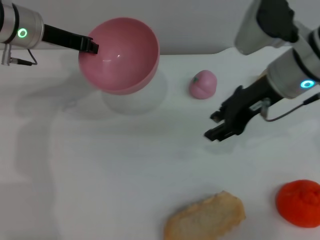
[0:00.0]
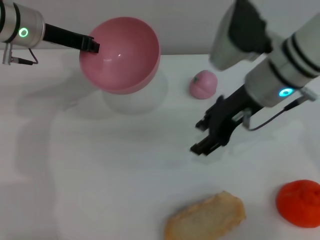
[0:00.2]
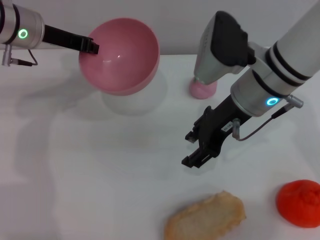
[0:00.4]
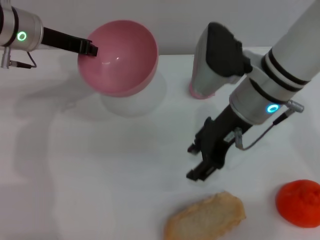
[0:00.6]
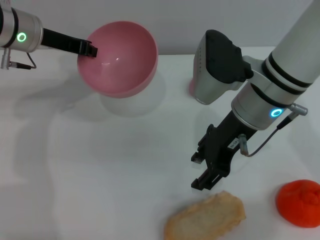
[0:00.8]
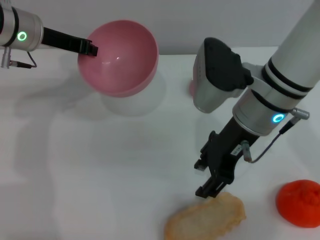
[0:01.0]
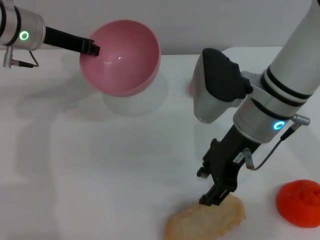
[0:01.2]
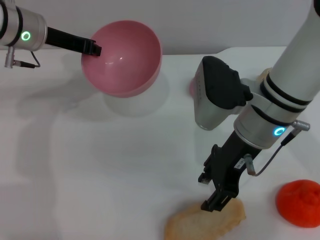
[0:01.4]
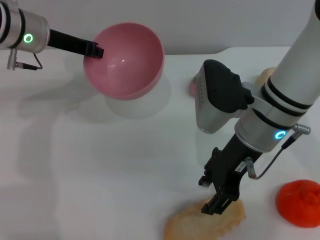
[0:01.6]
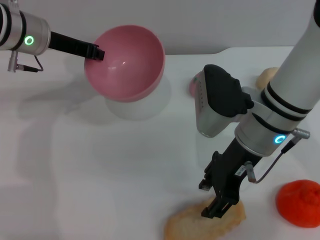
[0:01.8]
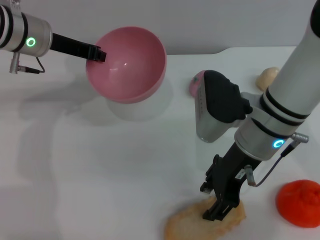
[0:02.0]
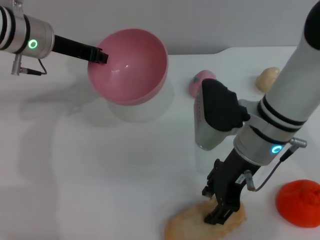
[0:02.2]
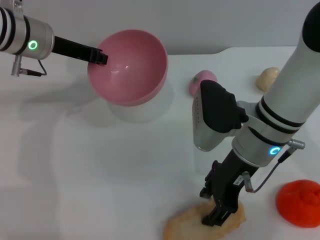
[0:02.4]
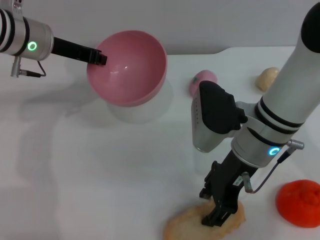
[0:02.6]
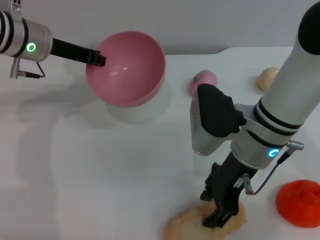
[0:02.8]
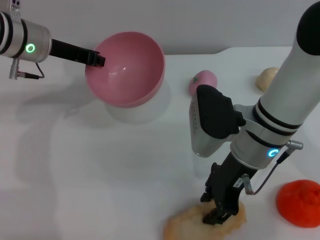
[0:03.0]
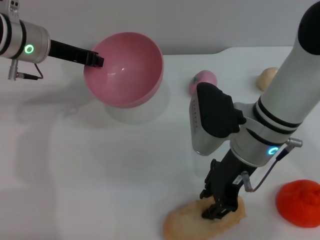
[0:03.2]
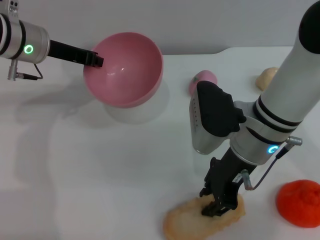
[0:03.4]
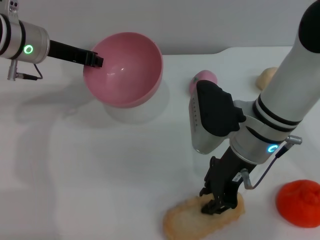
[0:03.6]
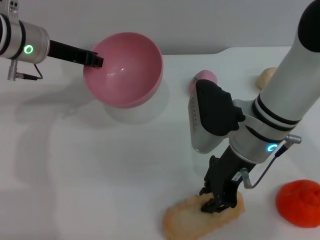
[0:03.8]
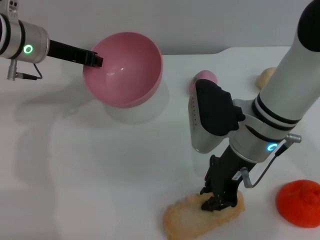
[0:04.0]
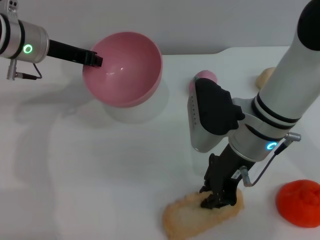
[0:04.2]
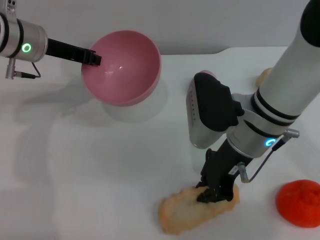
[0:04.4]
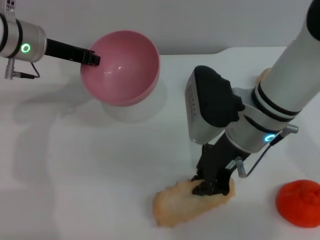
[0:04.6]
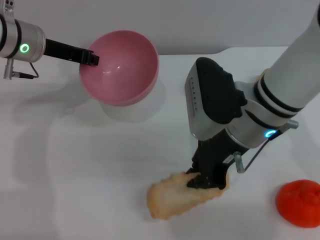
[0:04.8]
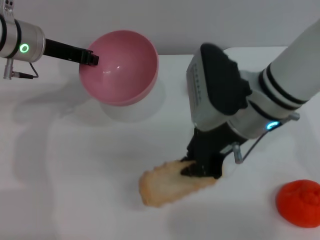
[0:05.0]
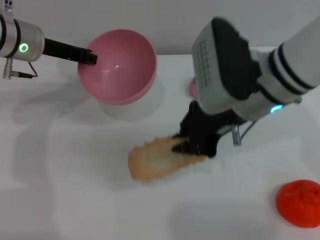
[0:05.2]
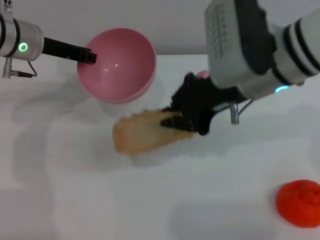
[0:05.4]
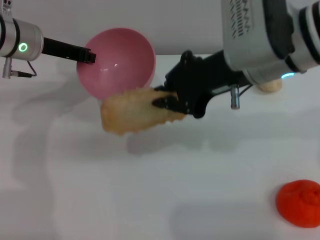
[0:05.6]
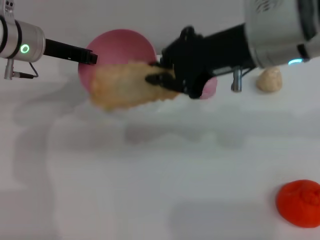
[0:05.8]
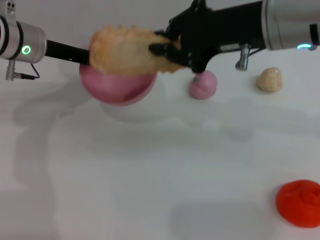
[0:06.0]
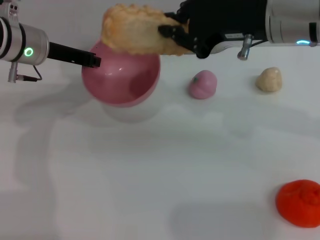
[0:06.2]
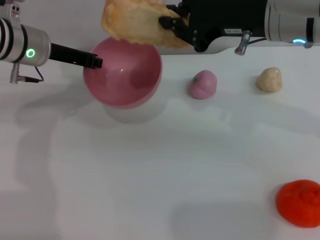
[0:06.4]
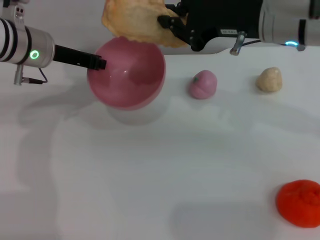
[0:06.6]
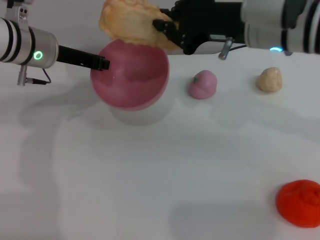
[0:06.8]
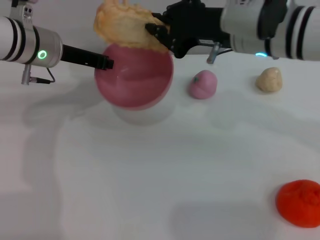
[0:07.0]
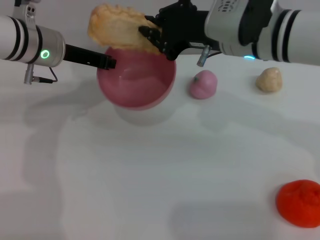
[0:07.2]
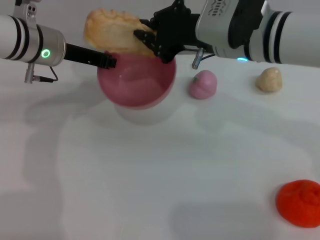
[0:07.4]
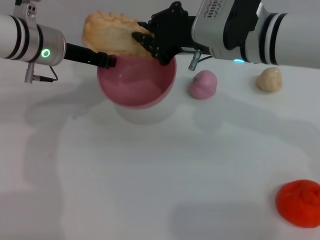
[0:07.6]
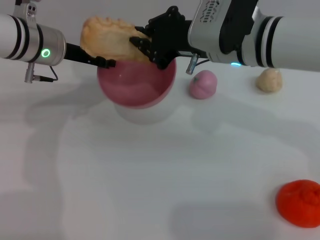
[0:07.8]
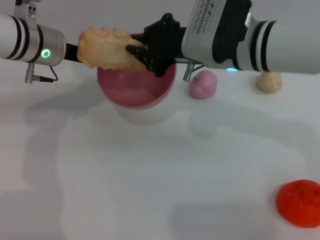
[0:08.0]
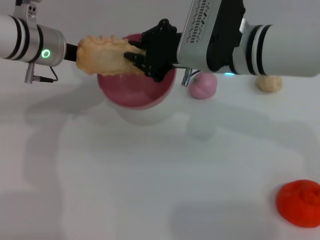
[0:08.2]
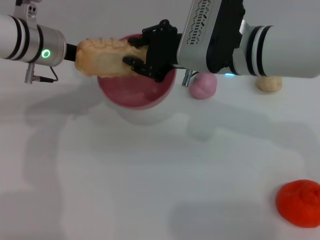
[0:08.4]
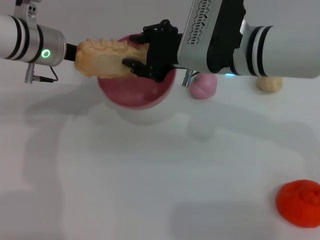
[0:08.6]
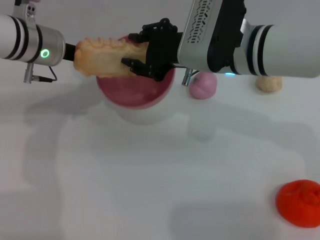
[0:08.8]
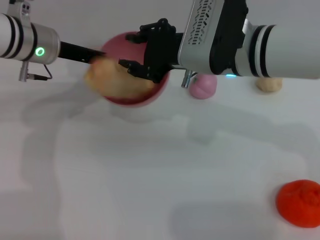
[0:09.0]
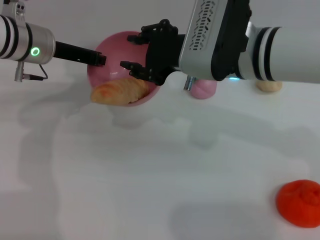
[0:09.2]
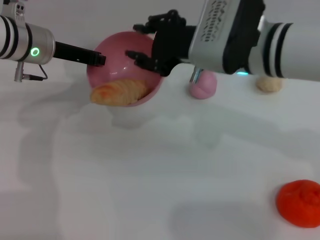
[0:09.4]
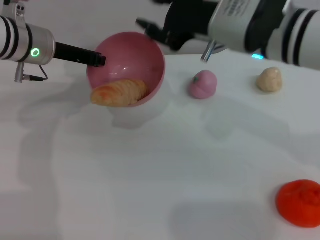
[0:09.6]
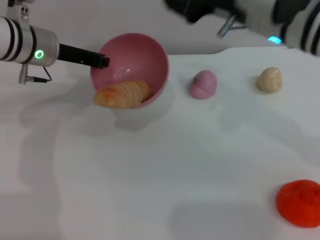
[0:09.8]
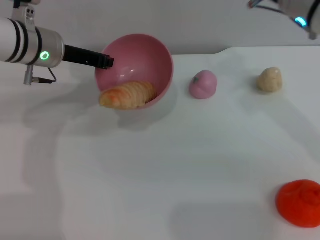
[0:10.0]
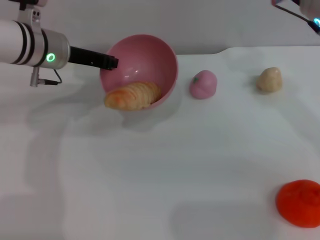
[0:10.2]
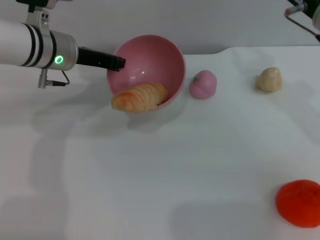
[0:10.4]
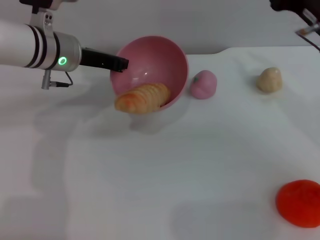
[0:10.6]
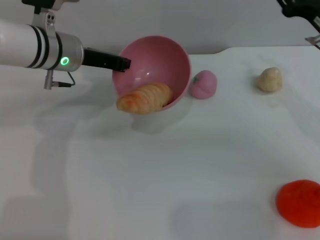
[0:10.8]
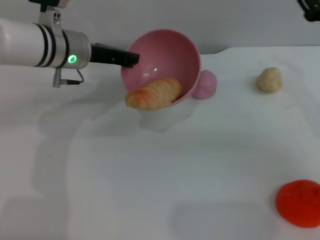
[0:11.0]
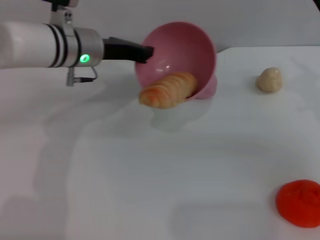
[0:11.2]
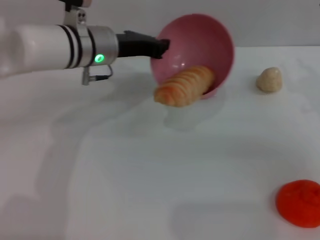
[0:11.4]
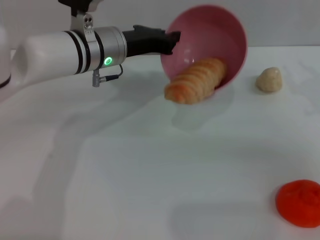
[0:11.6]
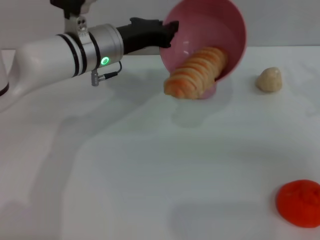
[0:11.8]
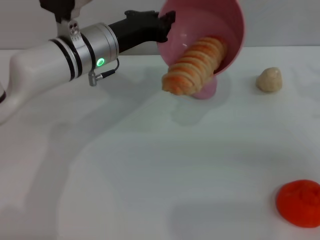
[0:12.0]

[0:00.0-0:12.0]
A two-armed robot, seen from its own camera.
Task of the whole recording: put the bread into the pink bowl and pour it out repeatedly.
Step, 0:00.0 to 0:05.4: Pick up the bread with the right gripper.
Step, 0:05.6 to 0:09.2: Place the bread into the bowl.
0:00.0 to 0:01.6: The right gripper moves approximately 5 cm.
0:01.6 to 0:03.0: There are only small adjustments of the grippers.
0:03.0 to 0:04.4: The right gripper closes.
0:04.4 to 0:06.0: The right gripper heads upward, covering approximately 10 cm.
0:06.0 to 0:07.6: The right gripper travels downward by some 5 cm.
0:07.6 to 0:09.0: The right gripper opens.
0:09.0 to 0:10.4: The right gripper travels to the right by about 15 cm.
0:10.4 to 0:12.0: The left gripper moves to the right, some 5 cm. The right gripper heads to the right, backward and downward, covering approximately 15 cm.

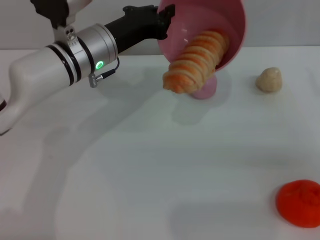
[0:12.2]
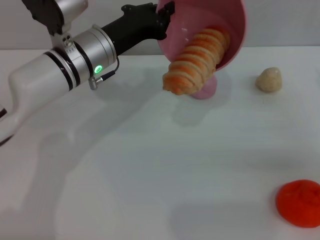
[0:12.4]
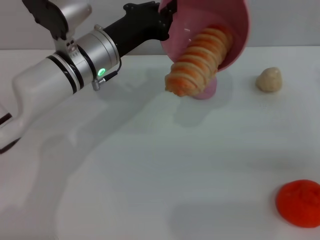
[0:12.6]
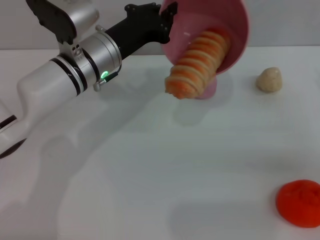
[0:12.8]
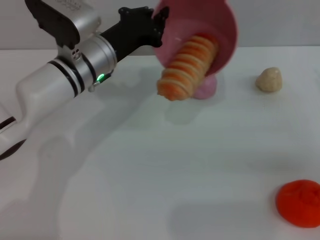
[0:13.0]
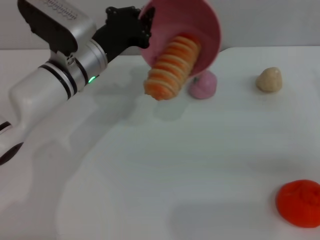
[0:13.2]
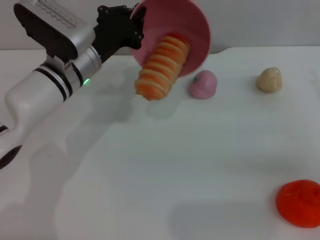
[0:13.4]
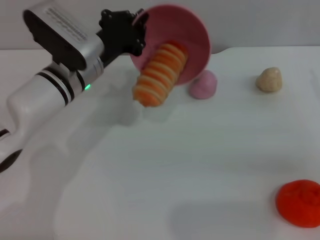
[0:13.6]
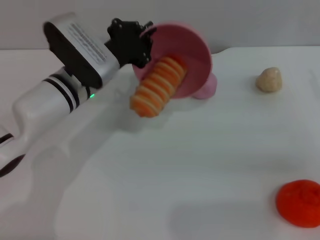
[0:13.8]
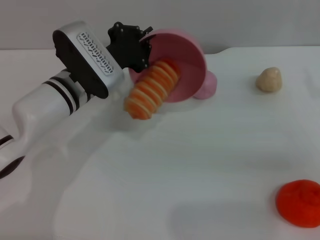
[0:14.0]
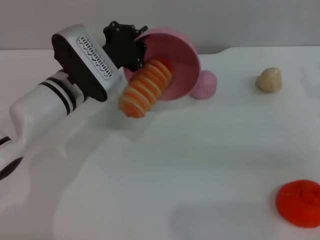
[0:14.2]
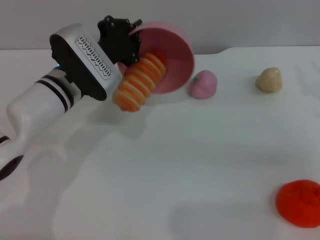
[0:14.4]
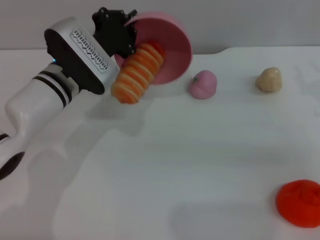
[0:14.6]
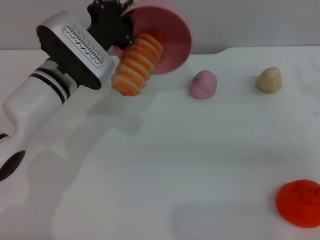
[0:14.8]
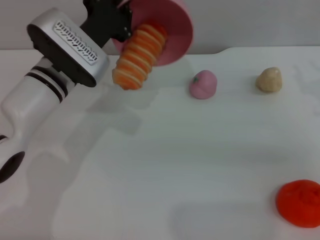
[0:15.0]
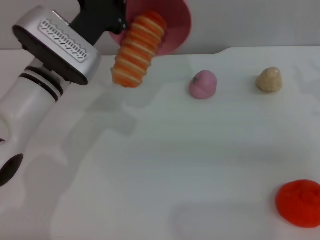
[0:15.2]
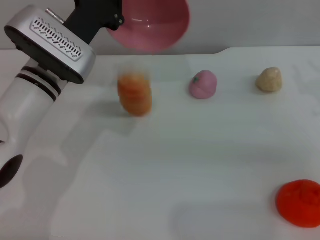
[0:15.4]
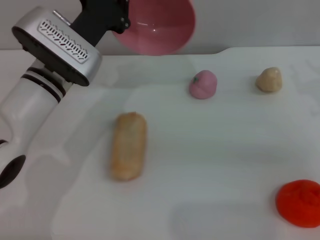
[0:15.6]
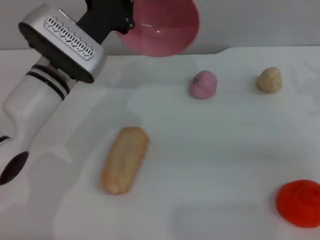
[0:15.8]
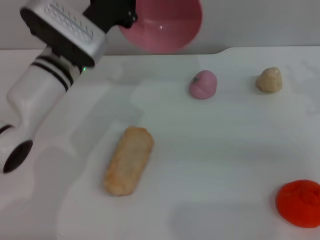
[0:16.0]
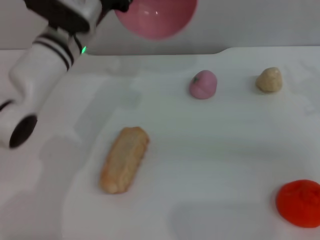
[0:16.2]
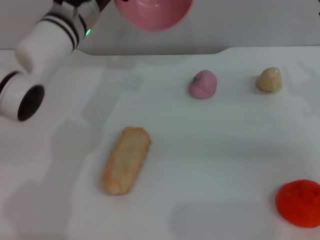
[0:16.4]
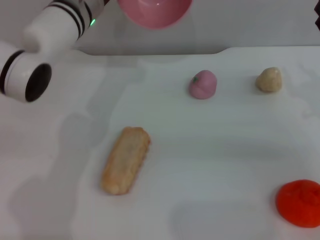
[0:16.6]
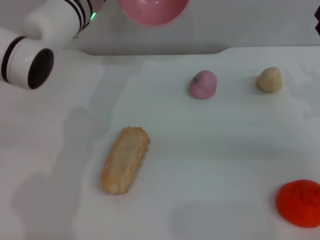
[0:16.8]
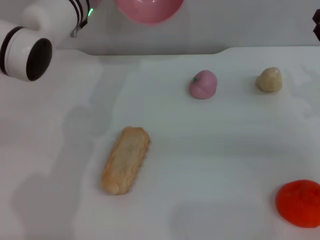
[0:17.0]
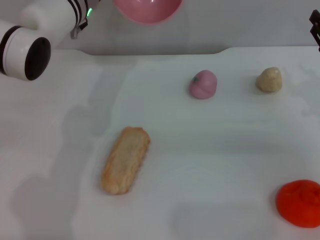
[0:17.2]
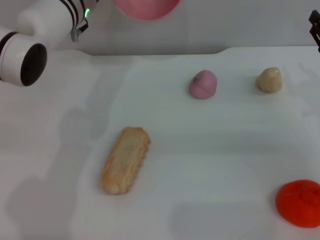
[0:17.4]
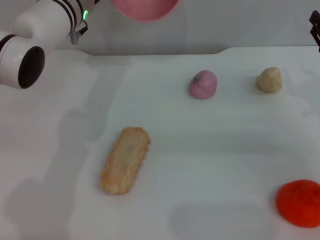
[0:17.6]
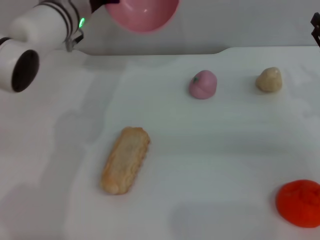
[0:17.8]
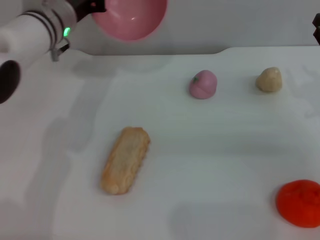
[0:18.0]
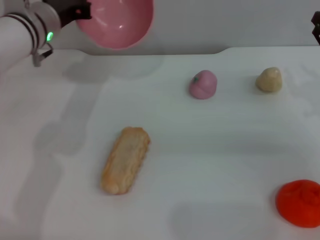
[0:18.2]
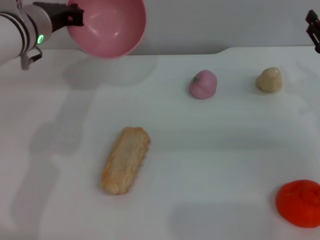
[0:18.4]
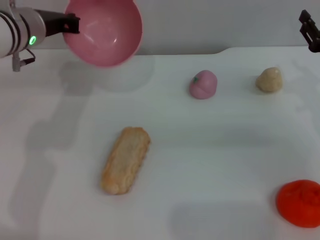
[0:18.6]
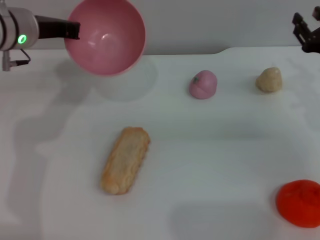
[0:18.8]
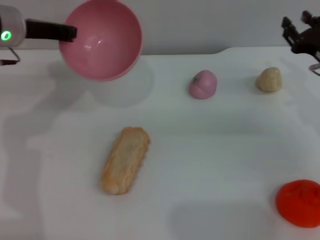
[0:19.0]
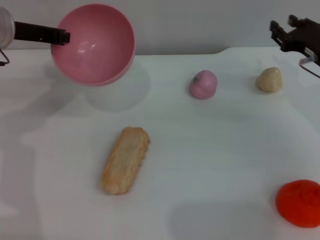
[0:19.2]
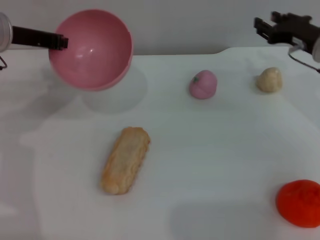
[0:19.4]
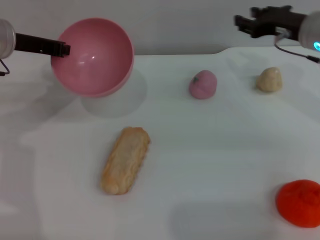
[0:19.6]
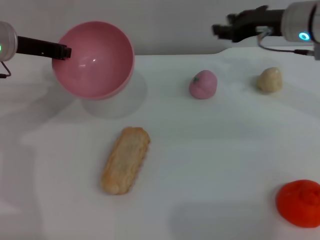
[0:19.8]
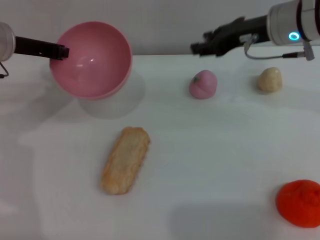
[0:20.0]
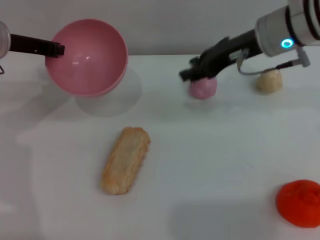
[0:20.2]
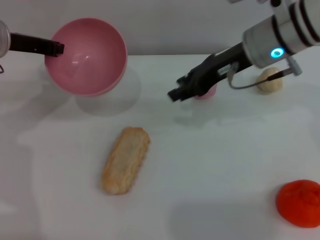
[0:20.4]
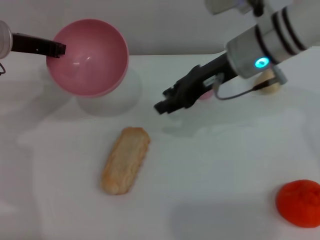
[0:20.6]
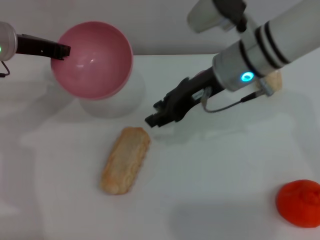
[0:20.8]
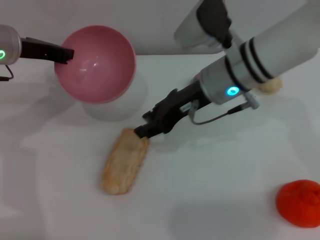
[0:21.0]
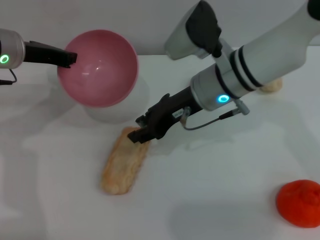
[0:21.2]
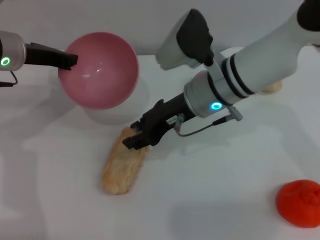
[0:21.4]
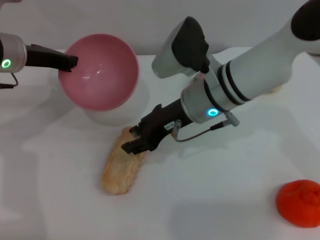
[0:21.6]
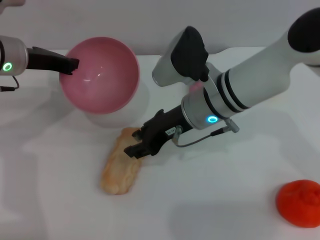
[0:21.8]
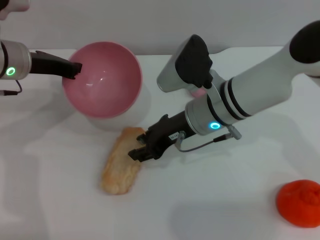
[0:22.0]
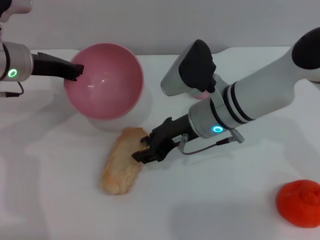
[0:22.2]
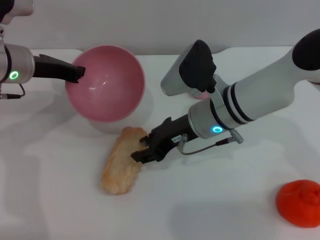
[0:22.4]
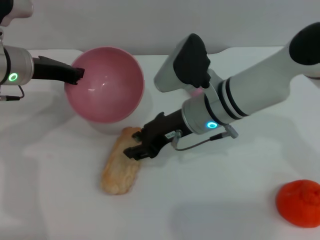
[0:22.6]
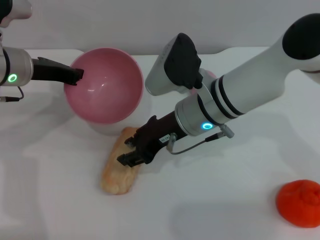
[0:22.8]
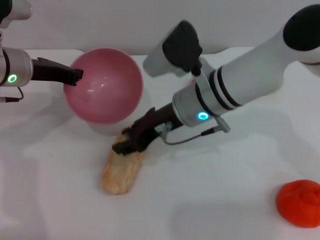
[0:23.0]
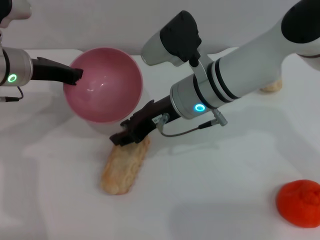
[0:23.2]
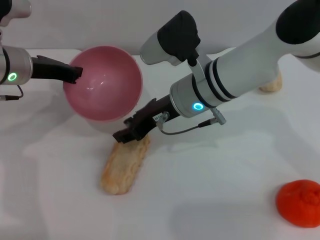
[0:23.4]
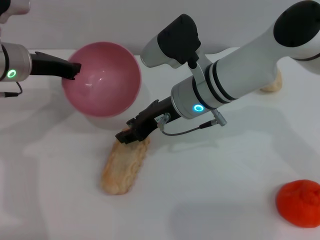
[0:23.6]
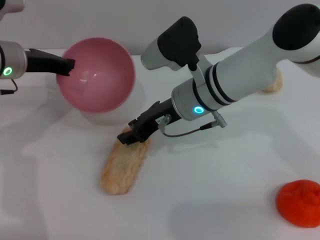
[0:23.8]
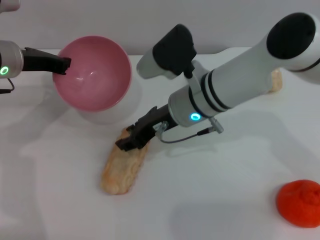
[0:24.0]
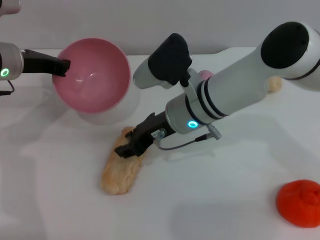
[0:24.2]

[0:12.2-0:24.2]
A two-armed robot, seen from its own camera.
Task of the whole recording: put the bread into the pink bowl and pour it out repeatedly.
Step, 0:12.2 to 0:15.6: Pour the bread out of the bowl.
0:13.8 to 0:15.2: The grippers stay close to where they were, moving slightly.
0:15.2 to 0:16.6: The left gripper shifts roughly 10 cm forward.
0:16.6 to 0:18.2: The left gripper is displaced to the left by roughly 5 cm.
0:18.2 to 0:19.8: The right gripper heads to the left, forward and upward, covering approximately 15 cm. Meanwhile the left gripper shifts about 5 cm to the left.
0:19.8 to 0:21.2: The right gripper goes about 15 cm to the left and backward.
0:22.6 to 0:24.2: The grippers stay close to where they were, moving slightly.
